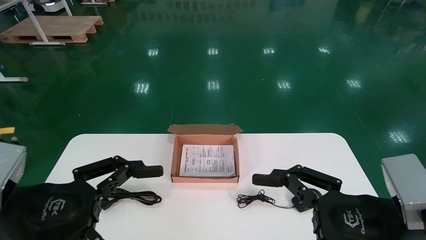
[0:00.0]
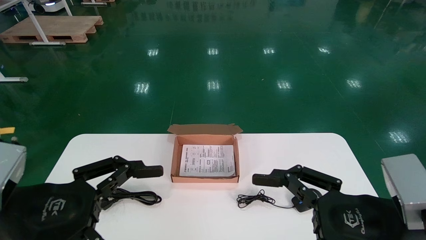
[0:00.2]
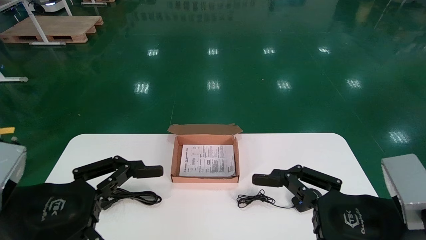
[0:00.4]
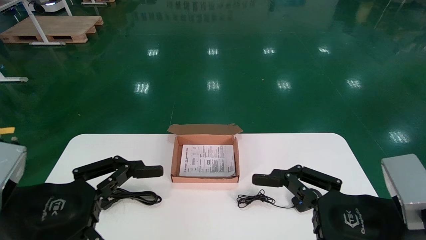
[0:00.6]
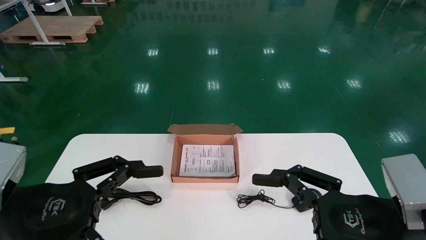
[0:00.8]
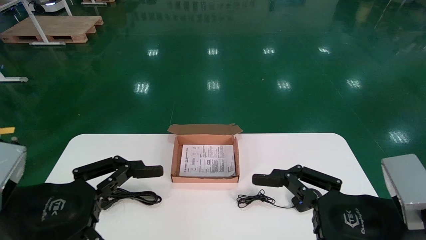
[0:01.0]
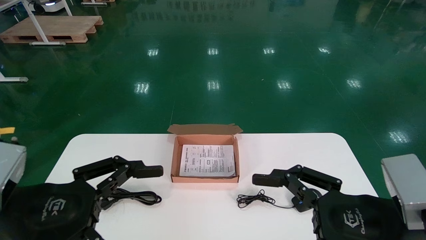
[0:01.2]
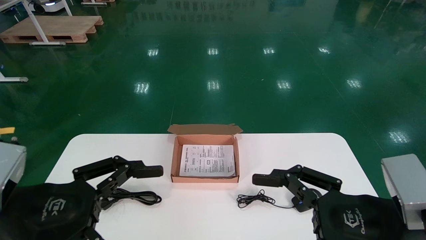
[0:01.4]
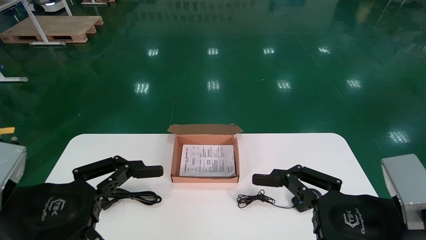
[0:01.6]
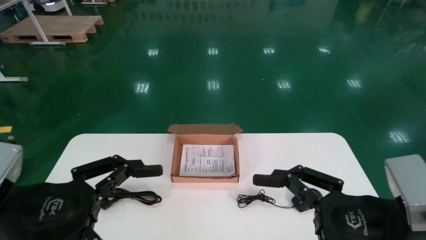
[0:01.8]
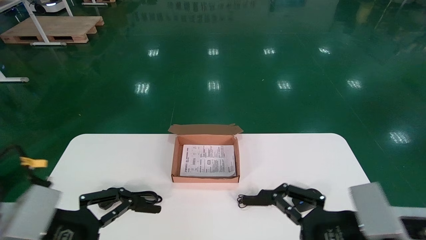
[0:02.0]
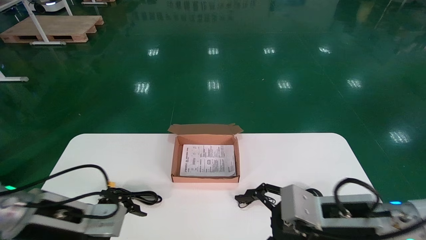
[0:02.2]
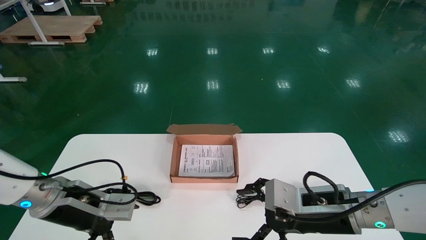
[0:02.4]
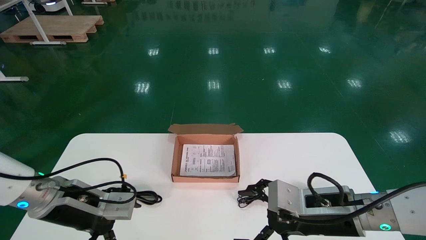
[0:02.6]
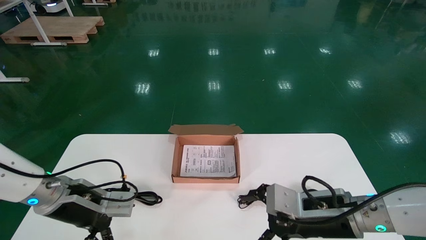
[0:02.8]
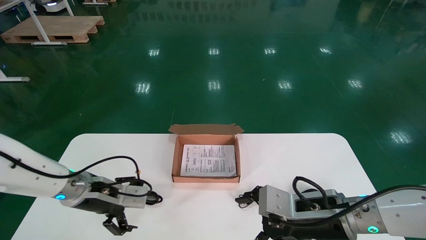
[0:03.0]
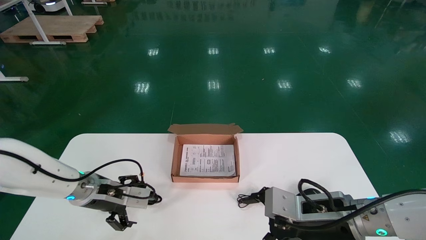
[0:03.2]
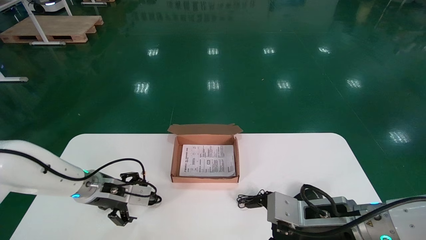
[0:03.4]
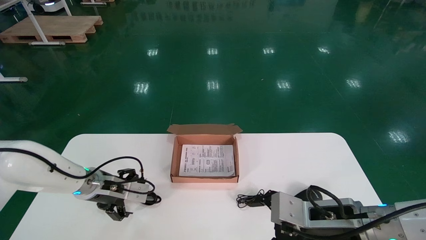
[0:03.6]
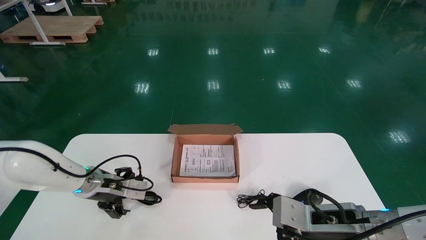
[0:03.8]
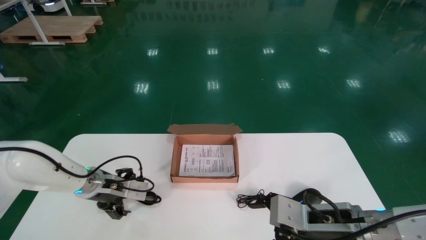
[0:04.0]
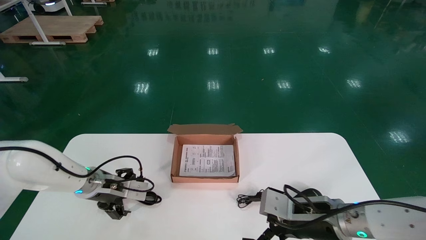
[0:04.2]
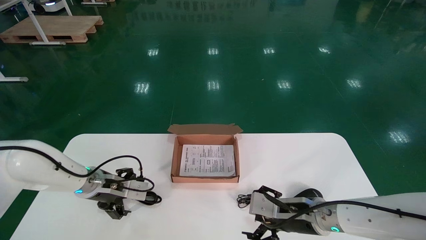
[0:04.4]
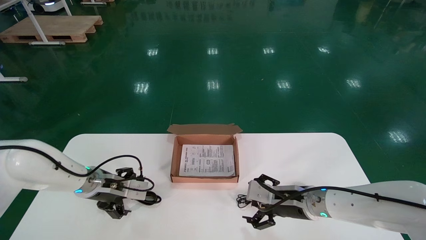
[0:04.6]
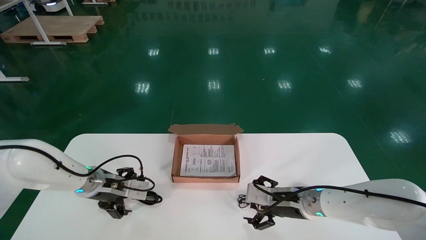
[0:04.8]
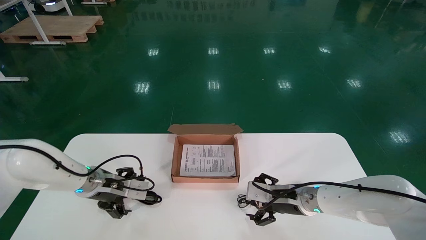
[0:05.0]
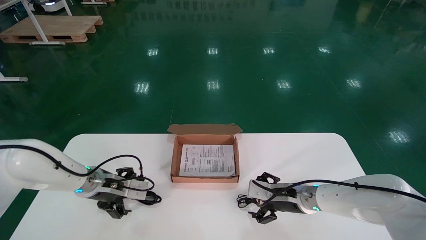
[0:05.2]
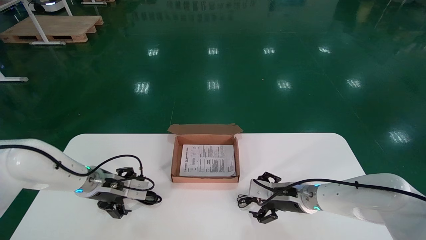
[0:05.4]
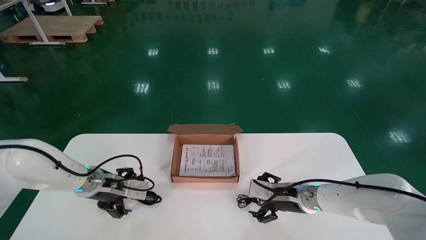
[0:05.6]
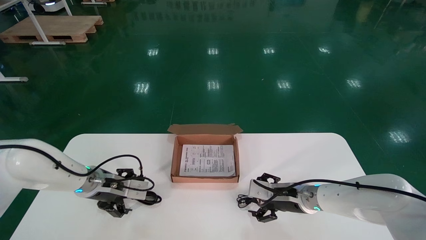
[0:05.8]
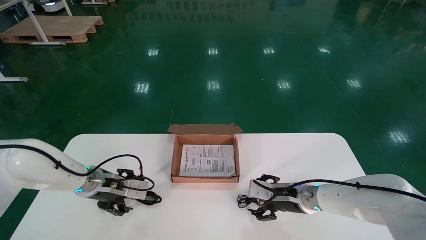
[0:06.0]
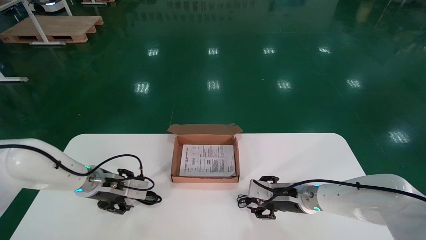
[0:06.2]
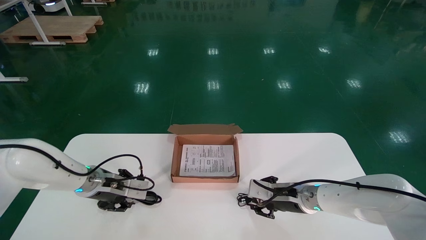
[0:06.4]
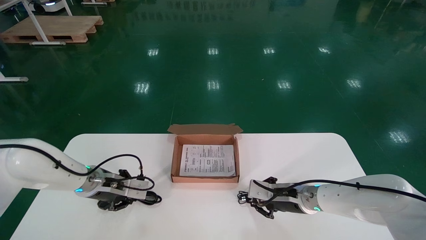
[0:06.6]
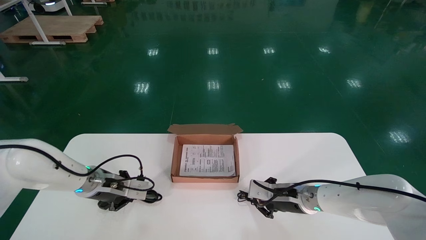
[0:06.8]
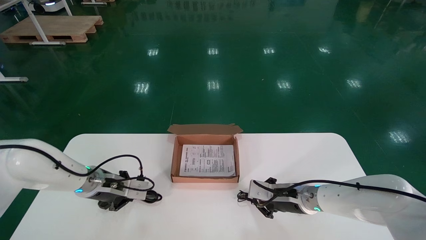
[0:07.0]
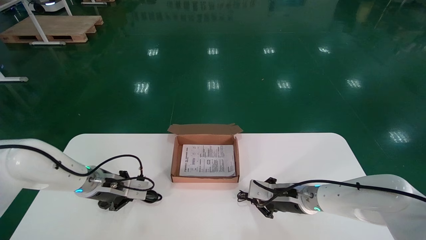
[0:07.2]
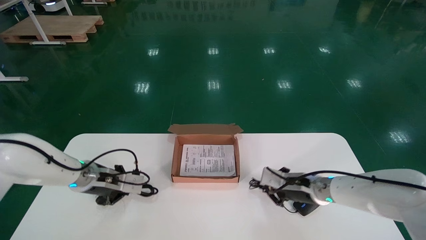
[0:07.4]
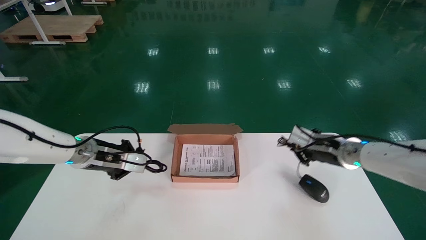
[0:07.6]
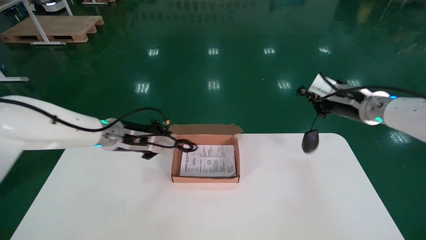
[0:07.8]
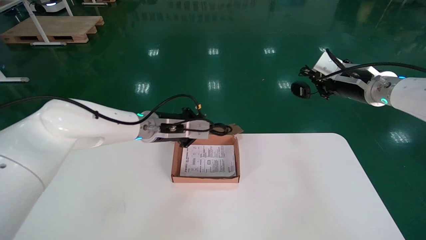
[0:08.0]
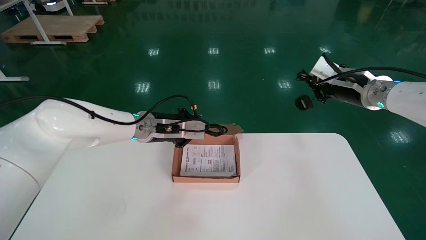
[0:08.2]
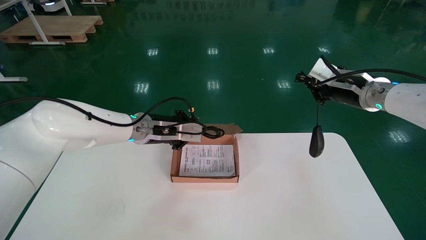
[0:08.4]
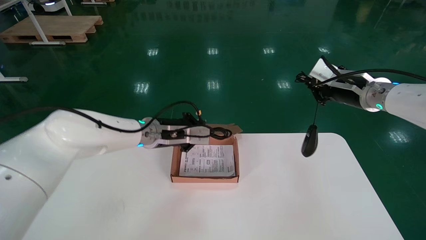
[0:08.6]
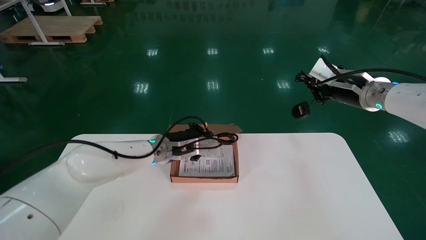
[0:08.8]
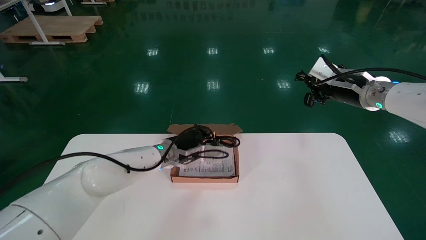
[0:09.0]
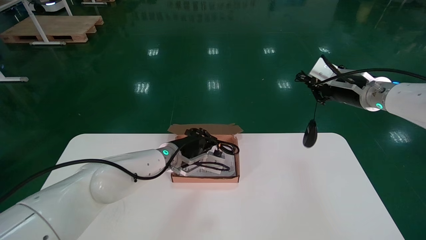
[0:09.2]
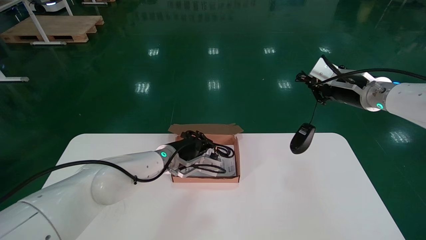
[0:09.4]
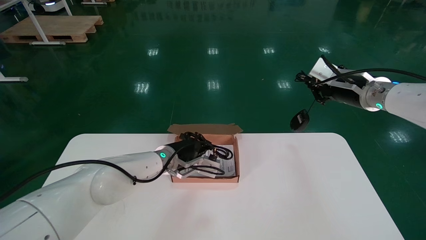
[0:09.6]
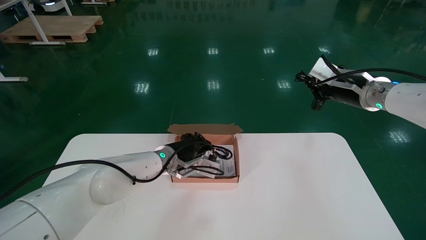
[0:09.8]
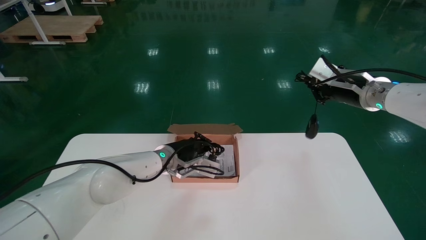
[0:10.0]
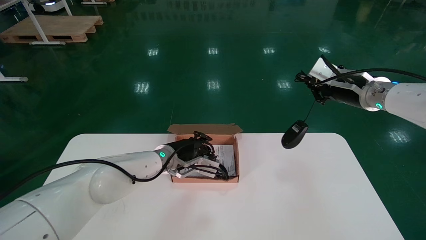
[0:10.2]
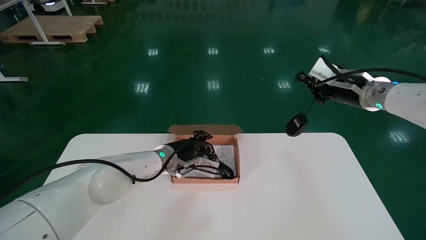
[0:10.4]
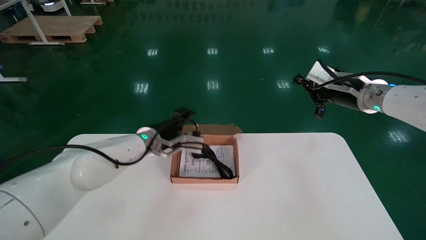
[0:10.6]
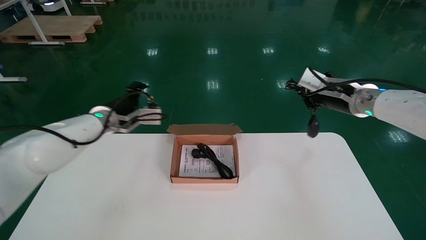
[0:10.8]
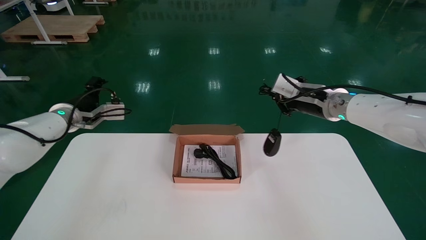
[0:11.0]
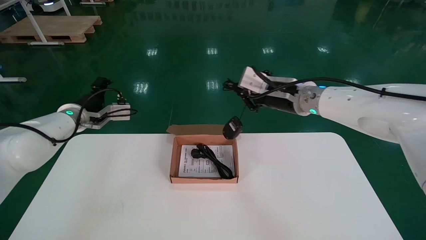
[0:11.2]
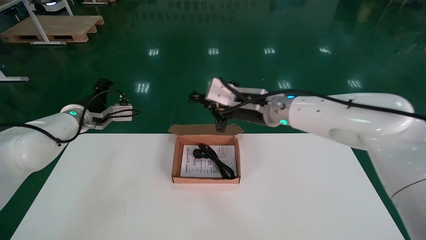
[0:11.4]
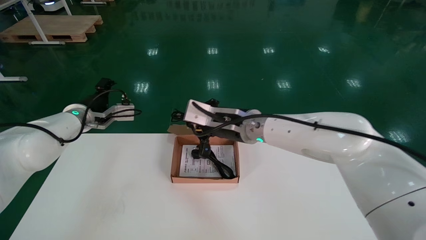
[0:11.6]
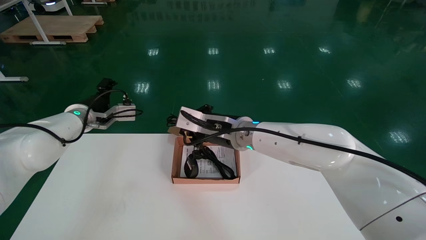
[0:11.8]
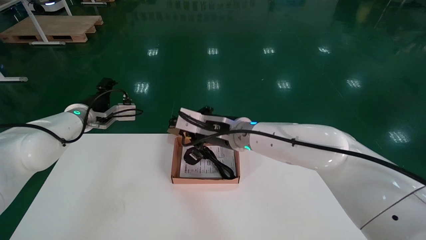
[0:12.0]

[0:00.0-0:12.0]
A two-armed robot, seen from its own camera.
Step, 0:02.2 to 0:06.6: Simultaneously pick up the mouse and power cord from the accessory packaging area.
0:00.0 to 0:01.6: The two grippers keep their place.
0:01.6 to 0:03.0: The right gripper goes about 15 cm forward and downward; the left gripper is displaced forward by approximately 20 cm.
0:03.0 to 0:04.4: Both grippers move forward, roughly 5 cm.
0:04.4 to 0:06.0: The right gripper is displaced forward by roughly 5 cm.
0:06.0 to 0:07.6: The left gripper heads upward, covering about 10 cm, and closes up; the right gripper heads upward and to the right, covering approximately 15 cm, and closes up.
0:07.6 to 0:09.0: The right gripper moves upward, roughly 10 cm. The left gripper heads to the right, covering about 15 cm.
0:09.0 to 0:10.4: The left gripper opens its fingers.
0:10.4 to 0:12.0: The left gripper is displaced to the left and upward by approximately 20 cm, and opens. Meanwhile the right gripper travels to the left by about 25 cm.

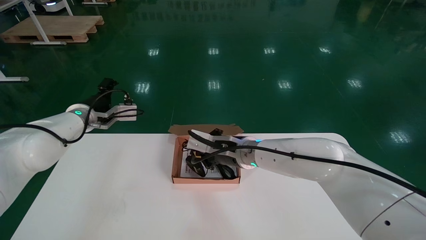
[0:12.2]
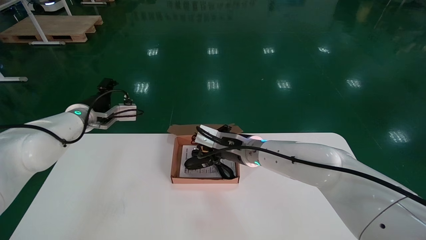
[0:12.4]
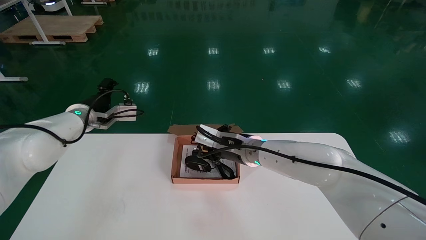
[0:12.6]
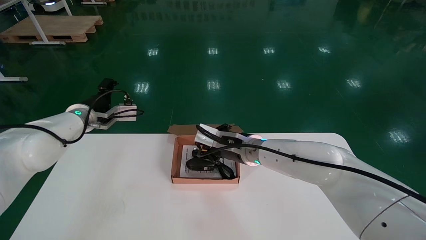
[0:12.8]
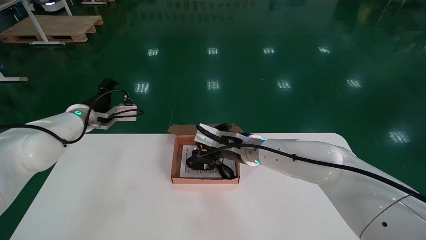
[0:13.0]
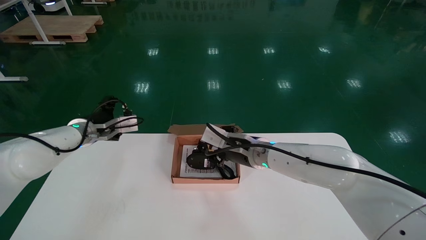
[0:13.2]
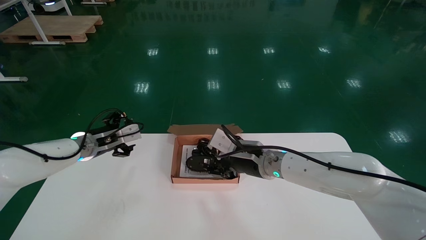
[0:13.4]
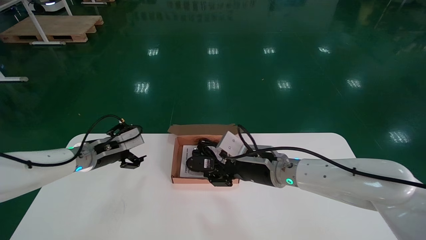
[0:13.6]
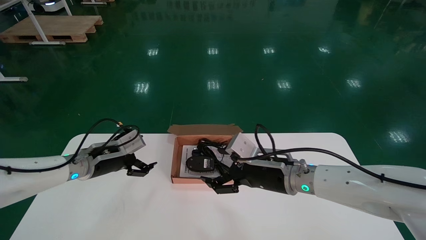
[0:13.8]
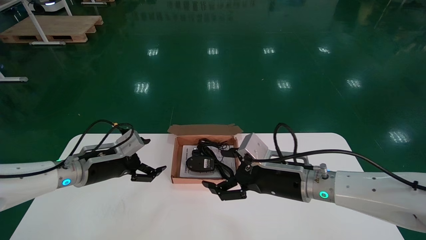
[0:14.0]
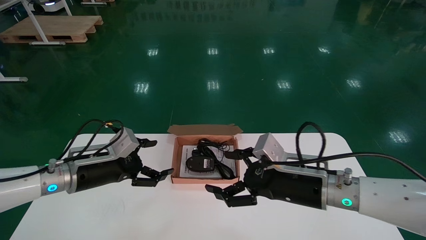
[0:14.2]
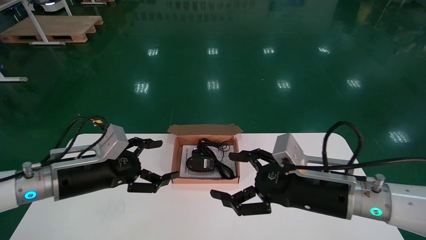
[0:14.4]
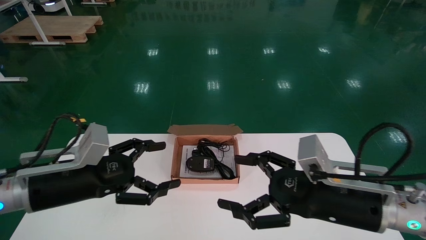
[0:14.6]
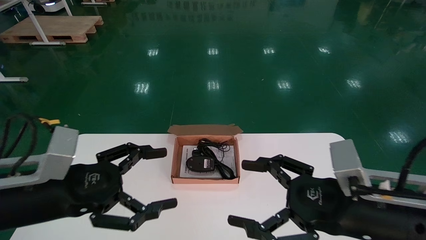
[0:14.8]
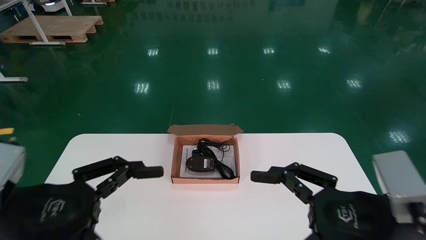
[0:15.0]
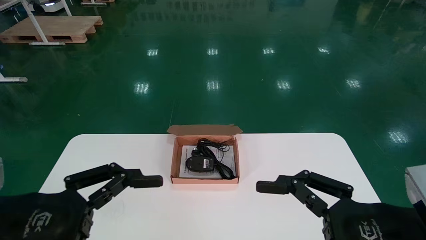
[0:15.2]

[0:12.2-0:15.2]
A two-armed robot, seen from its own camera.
0:12.2 to 0:13.8: The left gripper shifts about 10 cm downward and backward. The right gripper goes about 10 cm to the right and backward, and opens its fingers.
0:13.8 to 0:15.2: The right gripper travels backward and to the right by roughly 25 cm. Meanwhile the left gripper heads backward, covering some 25 cm.
